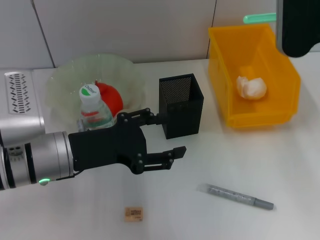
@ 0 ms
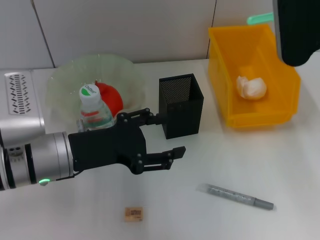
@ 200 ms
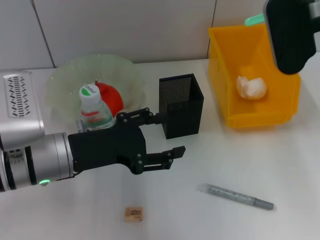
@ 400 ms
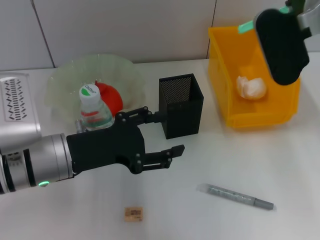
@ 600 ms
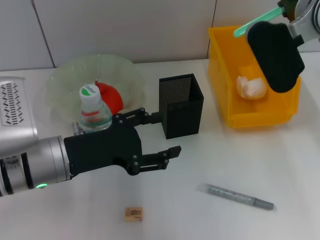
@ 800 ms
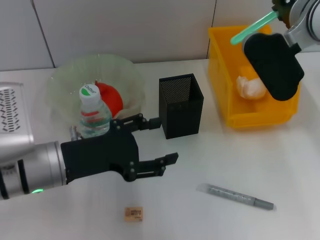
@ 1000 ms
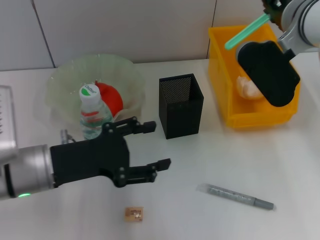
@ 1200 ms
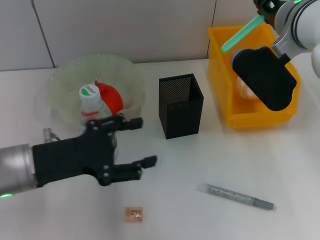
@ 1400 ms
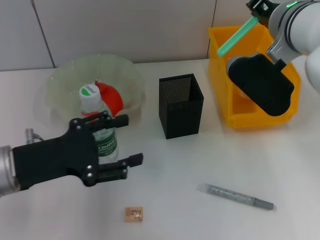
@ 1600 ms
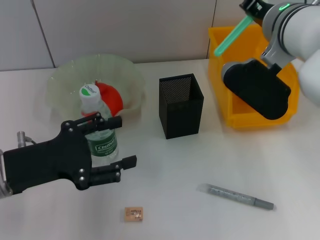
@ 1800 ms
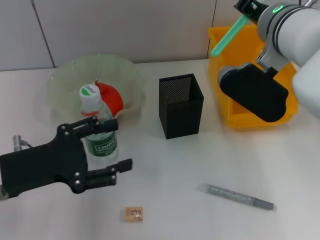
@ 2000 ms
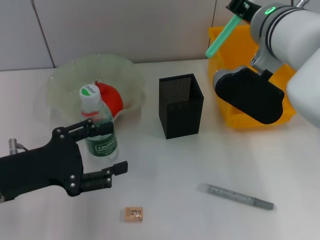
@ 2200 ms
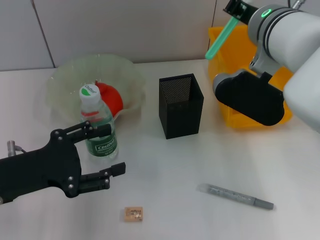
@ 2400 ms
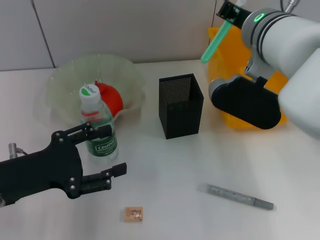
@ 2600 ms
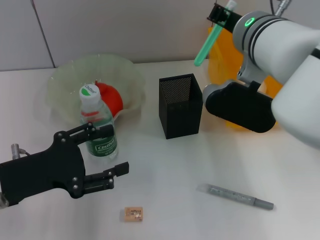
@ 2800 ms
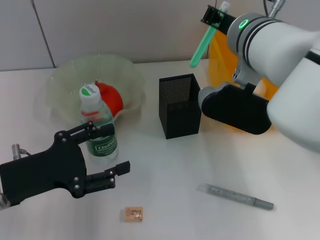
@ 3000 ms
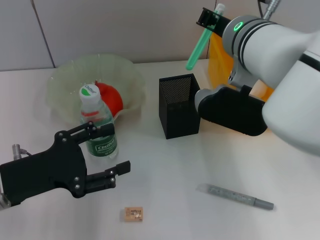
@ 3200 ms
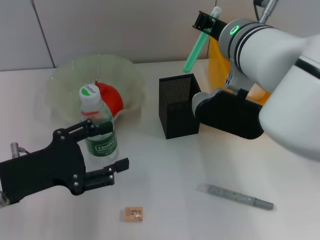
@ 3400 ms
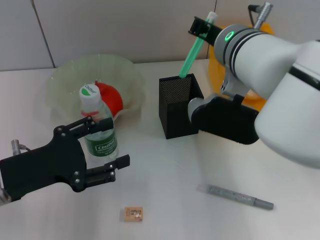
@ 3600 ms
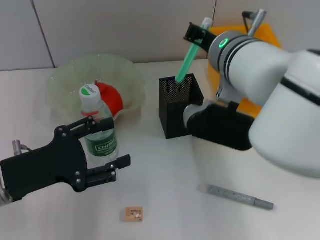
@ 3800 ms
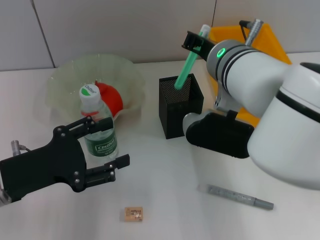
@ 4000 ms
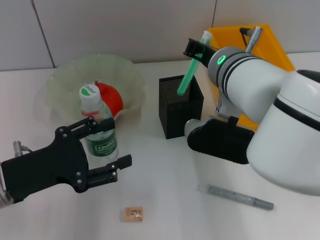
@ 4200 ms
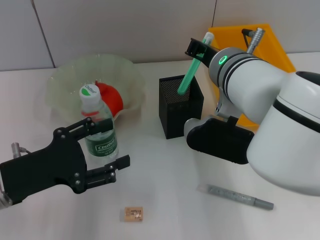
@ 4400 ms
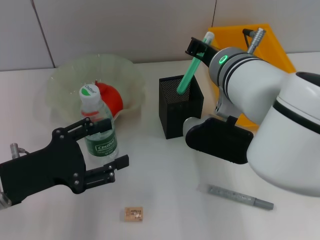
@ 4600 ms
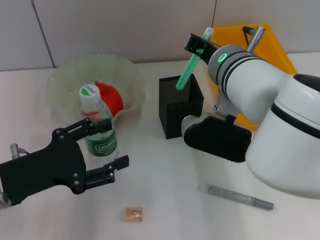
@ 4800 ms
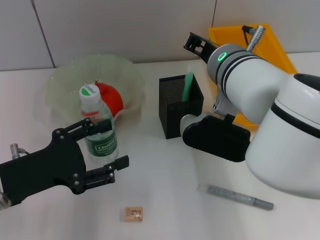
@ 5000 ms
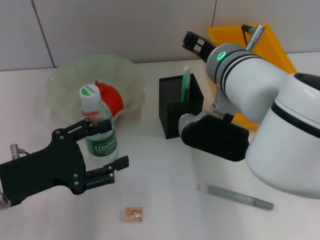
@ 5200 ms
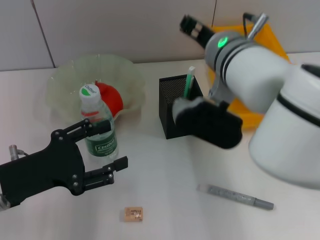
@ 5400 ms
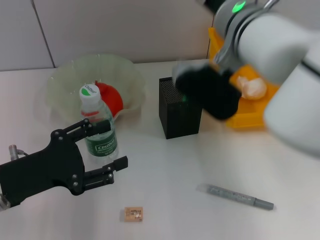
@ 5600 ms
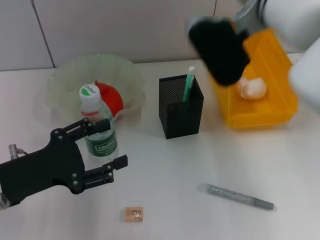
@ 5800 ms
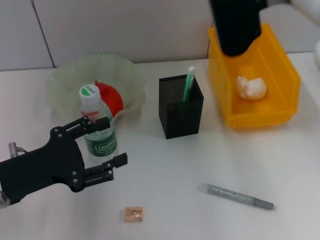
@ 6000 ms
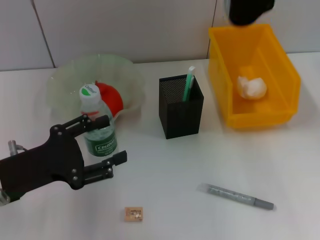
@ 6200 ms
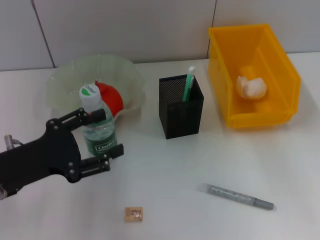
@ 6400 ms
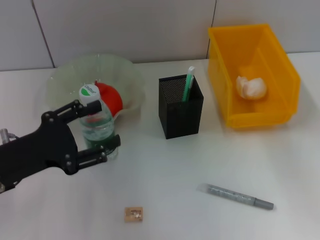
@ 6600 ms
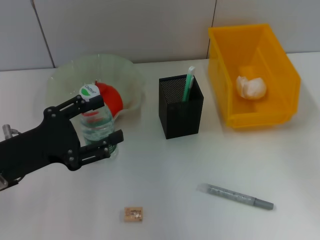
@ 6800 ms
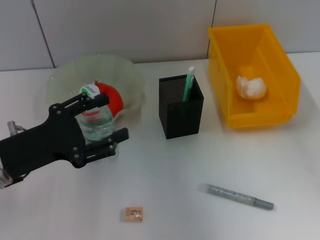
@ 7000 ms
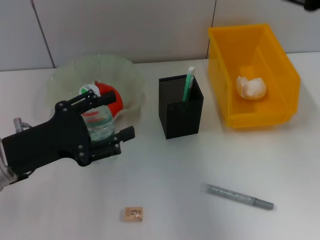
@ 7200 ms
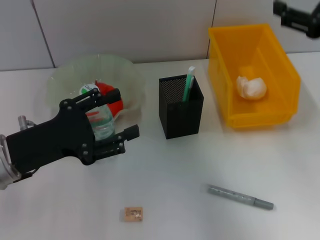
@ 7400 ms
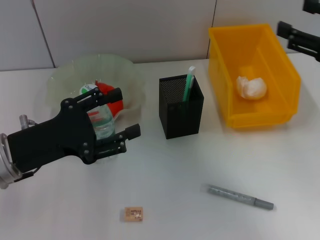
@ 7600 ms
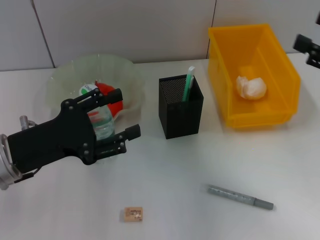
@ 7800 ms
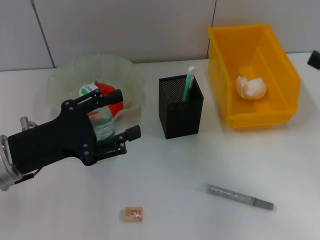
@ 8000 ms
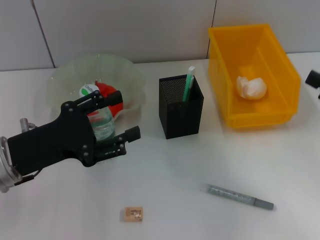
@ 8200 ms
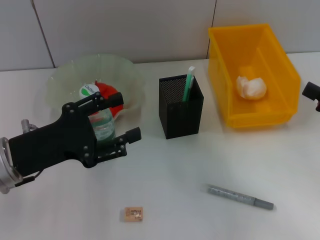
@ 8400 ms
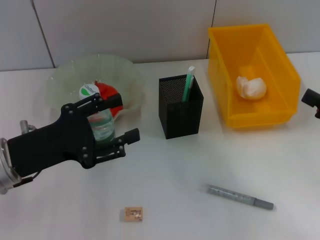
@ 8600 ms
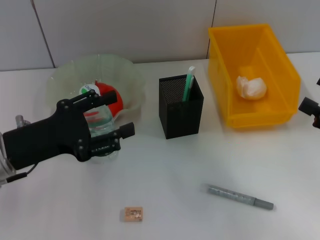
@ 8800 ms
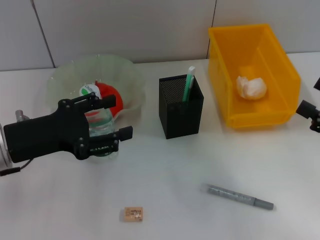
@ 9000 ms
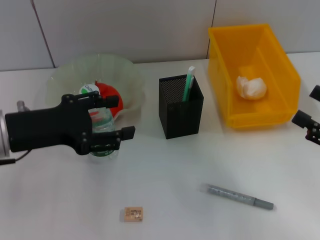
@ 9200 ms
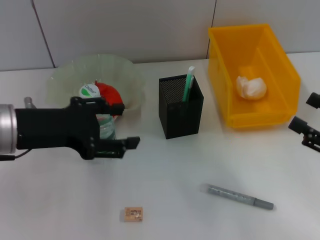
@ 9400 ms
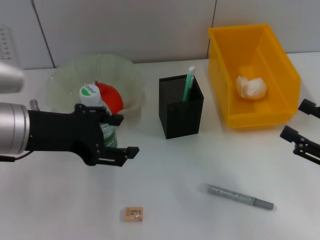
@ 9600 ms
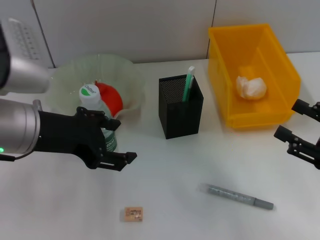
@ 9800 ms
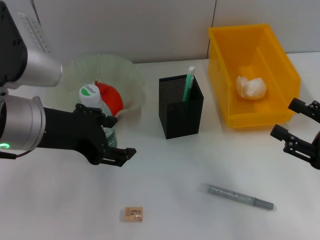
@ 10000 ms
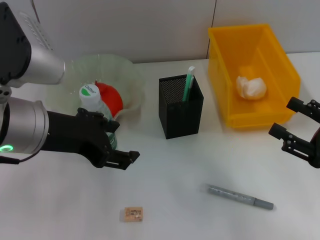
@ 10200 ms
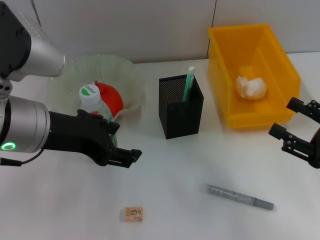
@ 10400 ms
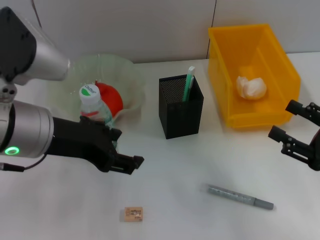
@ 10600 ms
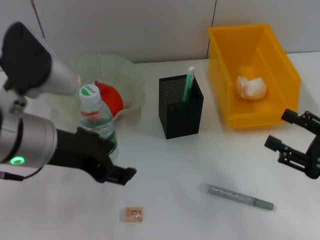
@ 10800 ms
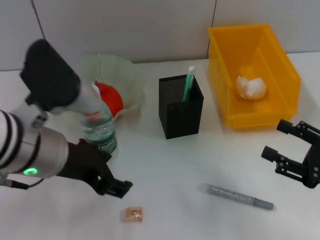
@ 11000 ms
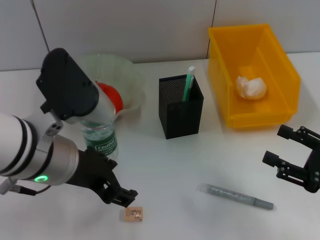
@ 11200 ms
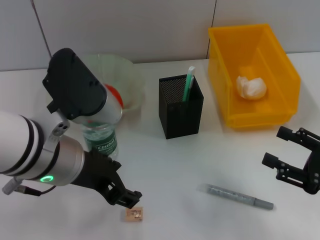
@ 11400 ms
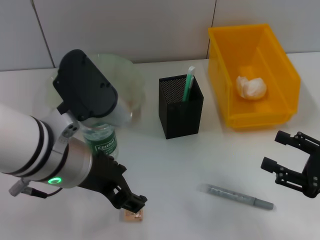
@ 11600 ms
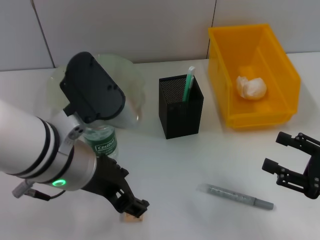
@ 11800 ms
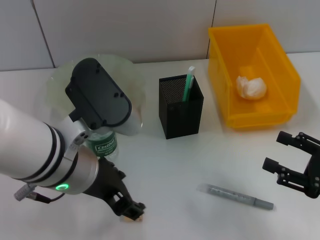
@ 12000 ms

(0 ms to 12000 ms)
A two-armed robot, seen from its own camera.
Step, 0 ms - 5200 ms: Place the blue utility knife into the pen holder with the right hand.
0 ms - 1600 ms: Both grippers move to the left, approximately 5 cm.
1600 ms - 3000 ms: The right gripper shifts approximately 5 cm to the left.
3000 ms - 4400 ms: The grippers move only a little.
4400 ms - 6000 ms: The right gripper goes roughly 10 cm upward and to the right, and opens.
6000 ms - 7600 ms: The right gripper shifts about 20 cm to the right, backward and downward.
7600 ms - 9000 ms: The right gripper shifts some 10 cm downward and backward.
9000 ms - 10400 ms: The left gripper heads upward and to the right, covering roughly 10 cm.
10400 ms - 12000 ms: The left gripper travels to the right by about 5 cm.

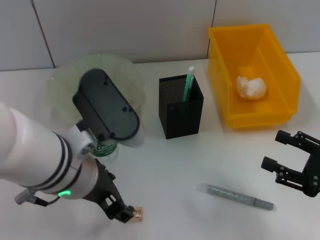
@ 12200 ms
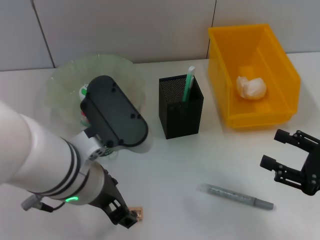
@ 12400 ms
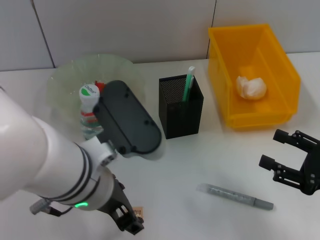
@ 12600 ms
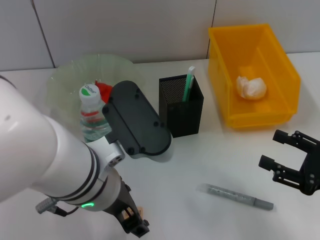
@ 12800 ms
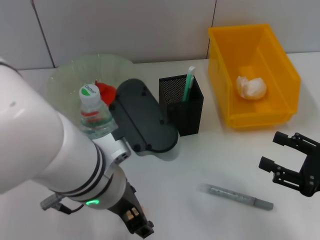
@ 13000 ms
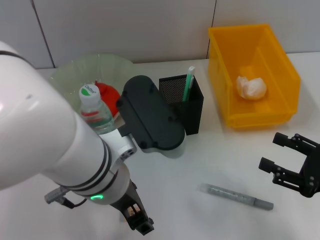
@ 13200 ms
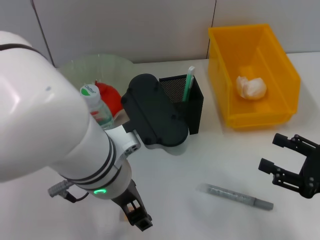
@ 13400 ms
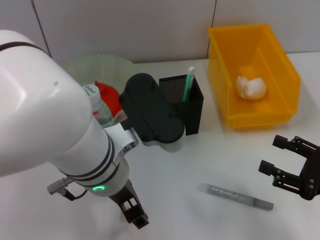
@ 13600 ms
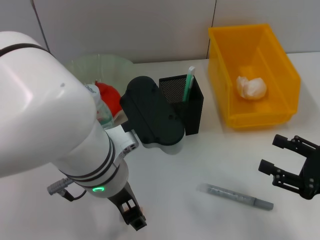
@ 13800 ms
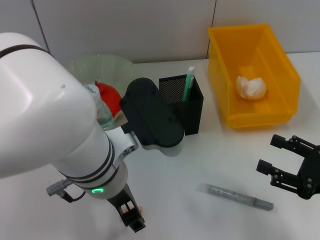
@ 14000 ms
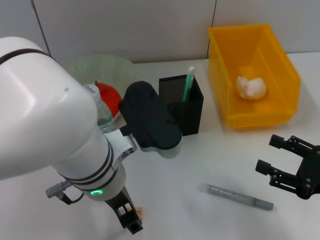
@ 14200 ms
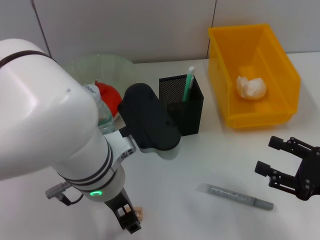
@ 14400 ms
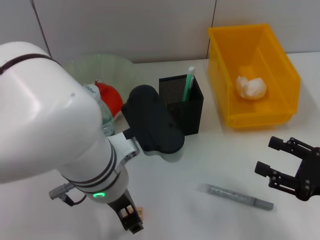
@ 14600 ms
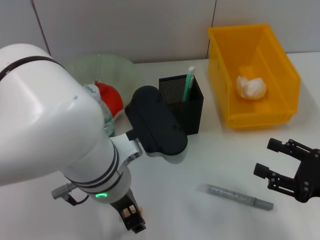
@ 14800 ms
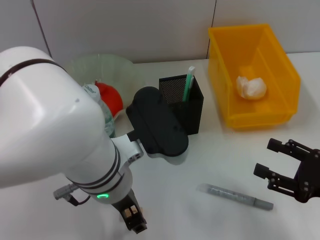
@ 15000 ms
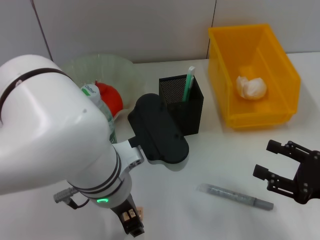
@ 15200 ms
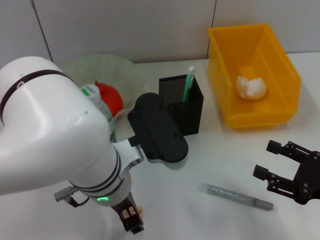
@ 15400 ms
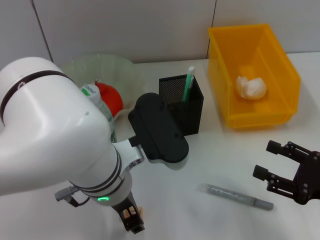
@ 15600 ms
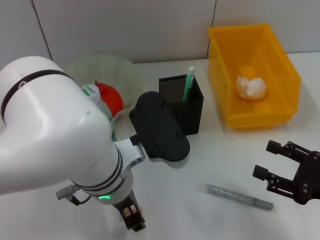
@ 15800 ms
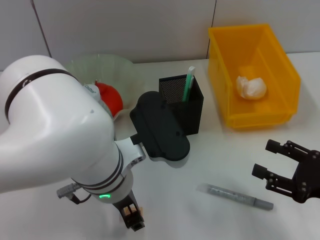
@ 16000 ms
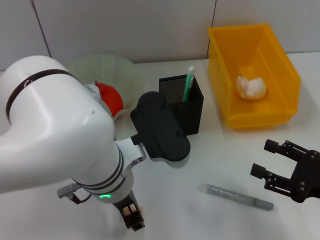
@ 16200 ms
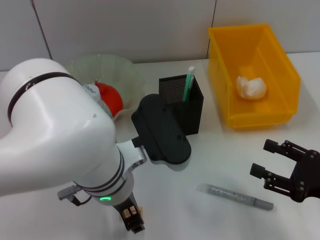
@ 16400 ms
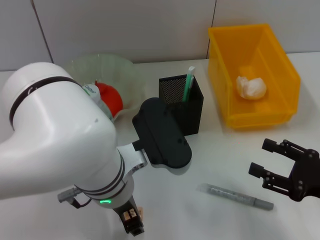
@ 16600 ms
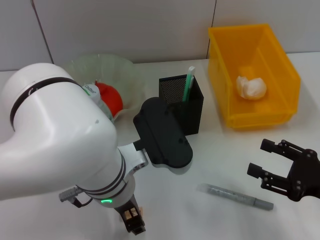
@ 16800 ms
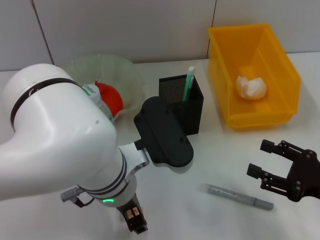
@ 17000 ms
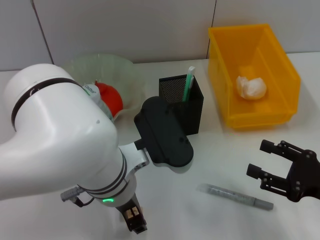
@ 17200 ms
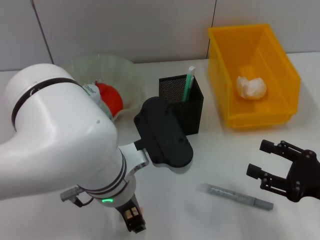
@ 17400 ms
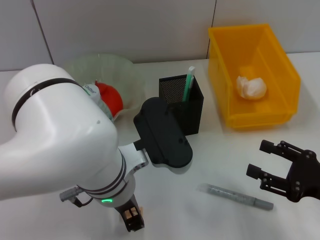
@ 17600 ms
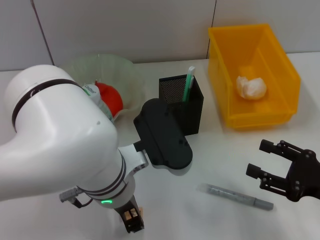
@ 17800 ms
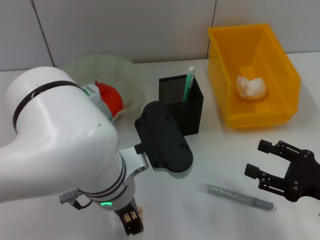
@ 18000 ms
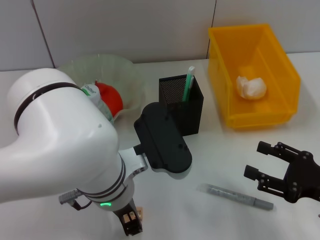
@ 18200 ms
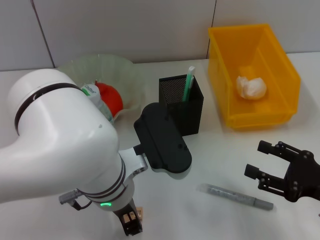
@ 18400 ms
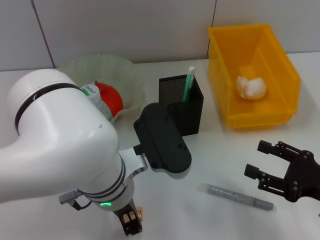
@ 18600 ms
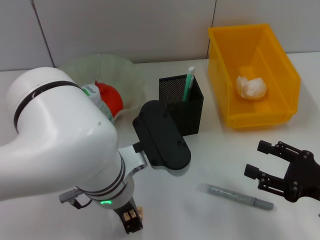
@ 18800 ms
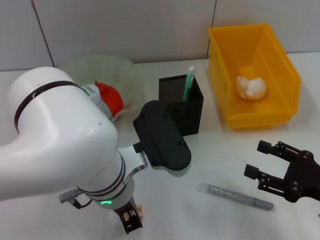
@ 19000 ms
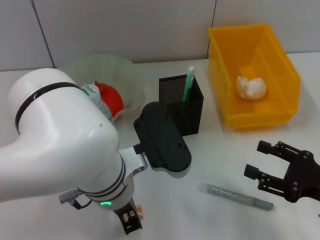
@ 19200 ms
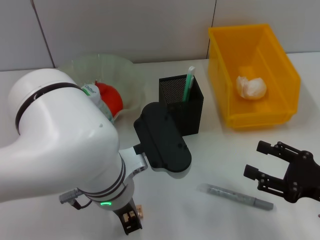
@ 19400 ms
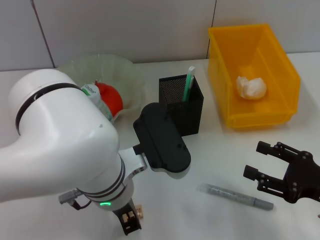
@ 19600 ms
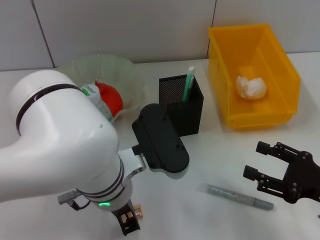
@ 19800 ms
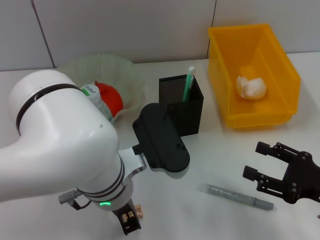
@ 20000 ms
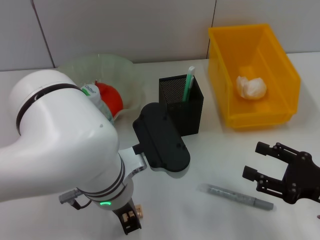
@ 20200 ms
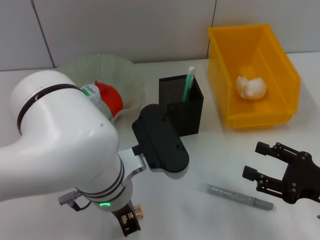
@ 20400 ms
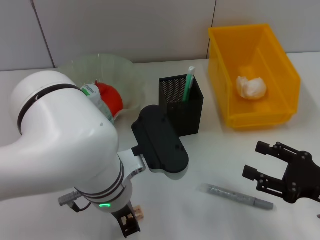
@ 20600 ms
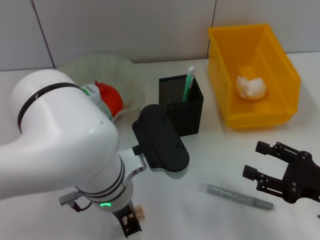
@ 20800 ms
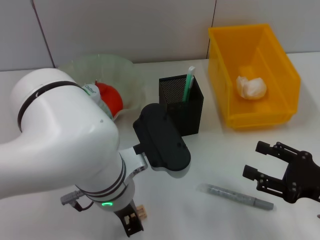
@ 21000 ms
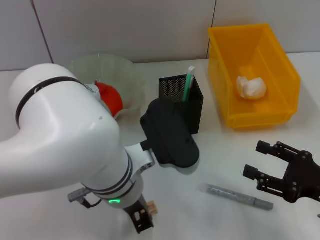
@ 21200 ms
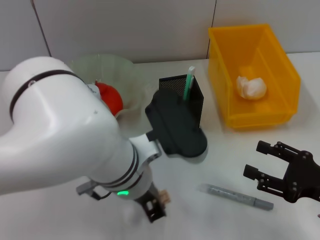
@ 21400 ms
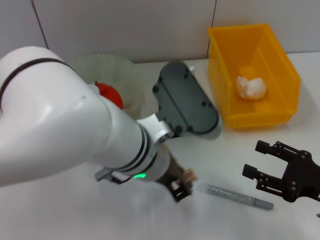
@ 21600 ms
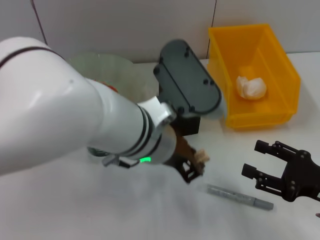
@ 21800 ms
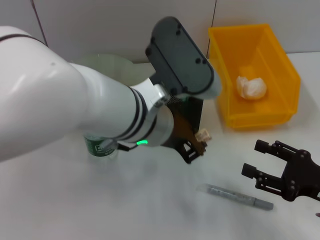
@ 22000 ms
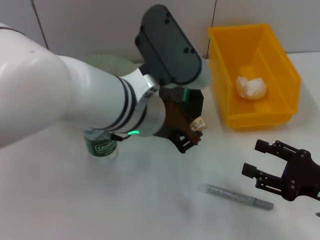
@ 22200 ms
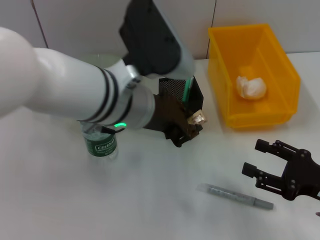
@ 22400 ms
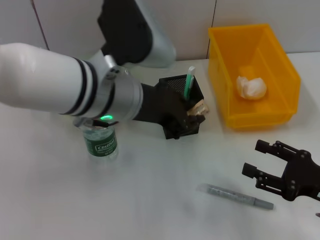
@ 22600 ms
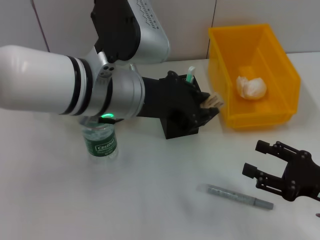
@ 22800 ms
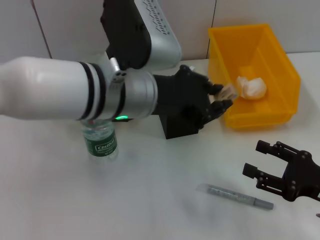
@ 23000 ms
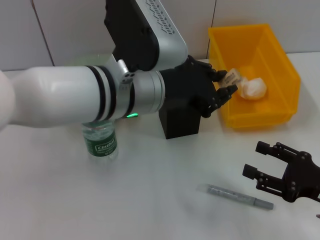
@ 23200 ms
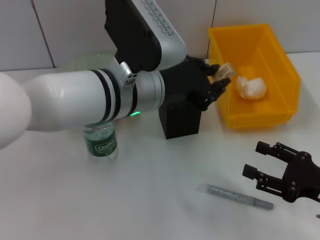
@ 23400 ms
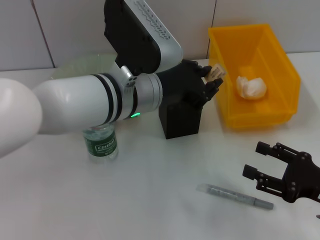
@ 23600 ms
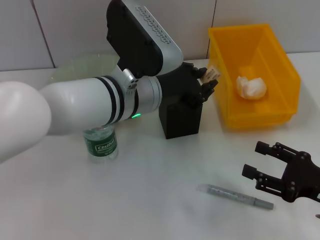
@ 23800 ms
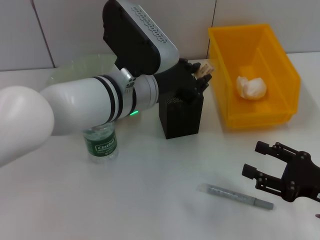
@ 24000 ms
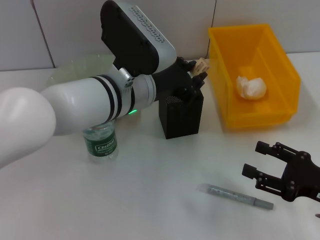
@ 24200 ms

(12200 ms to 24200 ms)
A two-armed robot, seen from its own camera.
Step, 12200 ms - 20600 ms: Grab the eraser with the left hand.
15200 ms - 18200 ms: Both grippers stay about where they are.
18200 ms - 21200 ms: The two grippers keep their place.
21200 ms - 22600 ms: The left gripper is displaced upward and forward by some 10 cm.
22600 ms - 24200 ms: The left gripper moves downward, about 5 cm.
